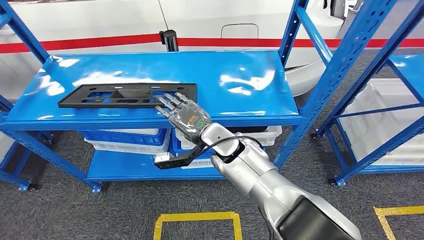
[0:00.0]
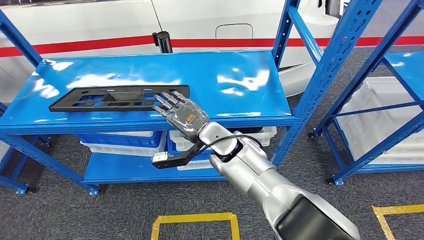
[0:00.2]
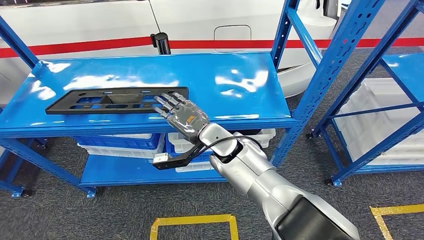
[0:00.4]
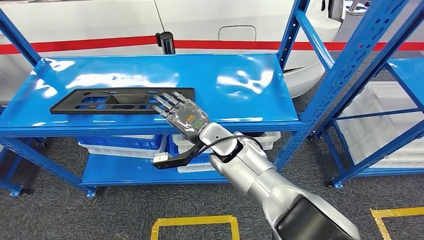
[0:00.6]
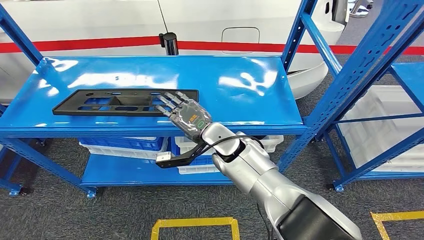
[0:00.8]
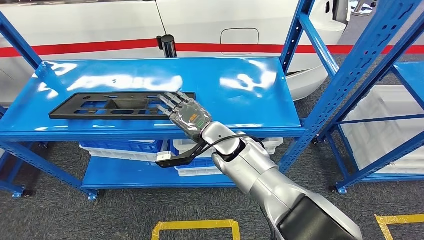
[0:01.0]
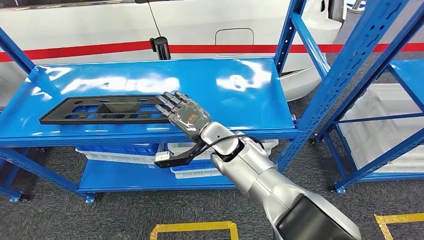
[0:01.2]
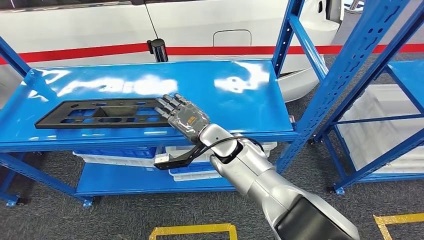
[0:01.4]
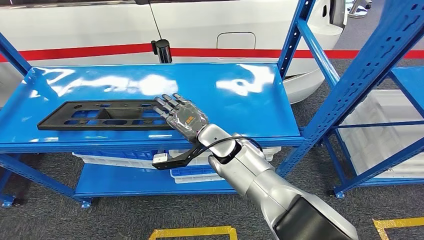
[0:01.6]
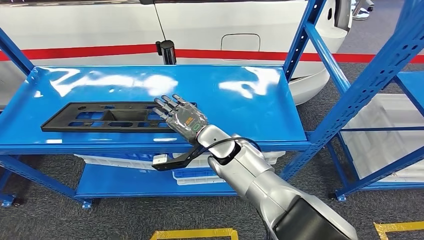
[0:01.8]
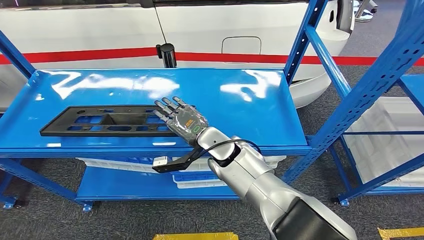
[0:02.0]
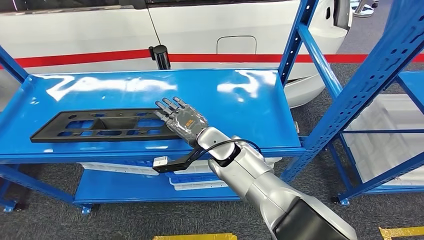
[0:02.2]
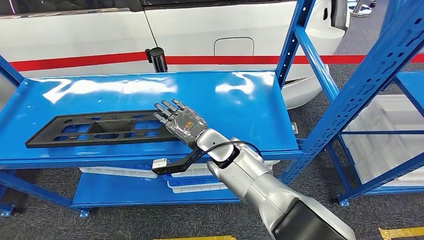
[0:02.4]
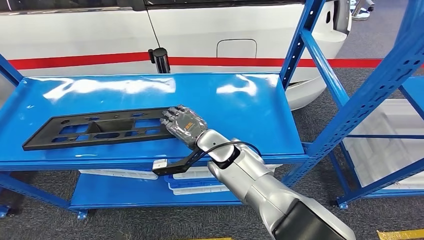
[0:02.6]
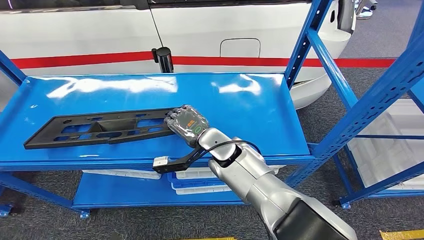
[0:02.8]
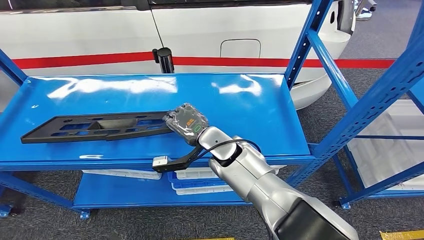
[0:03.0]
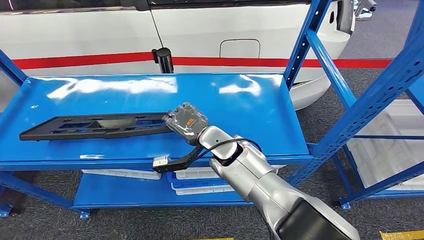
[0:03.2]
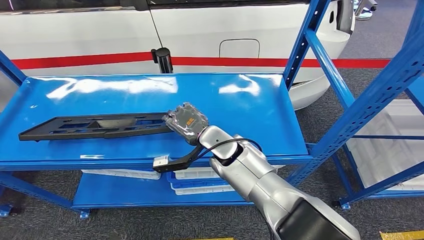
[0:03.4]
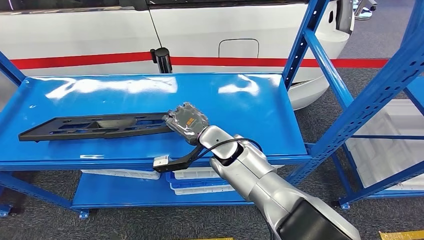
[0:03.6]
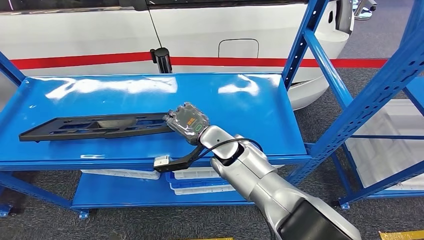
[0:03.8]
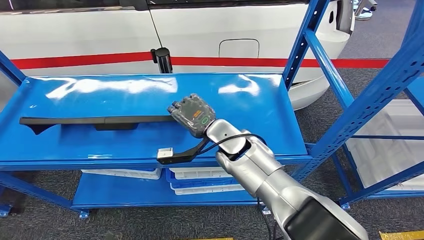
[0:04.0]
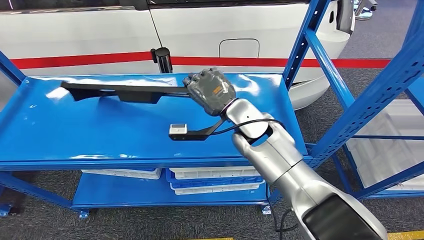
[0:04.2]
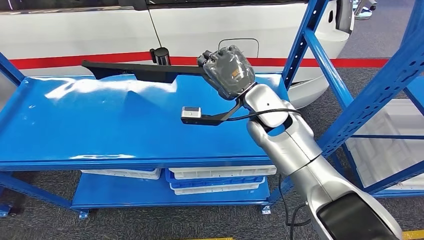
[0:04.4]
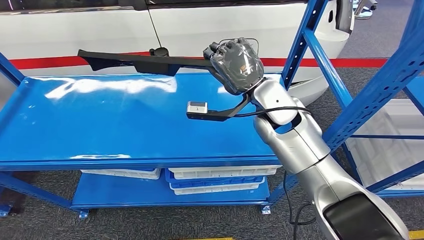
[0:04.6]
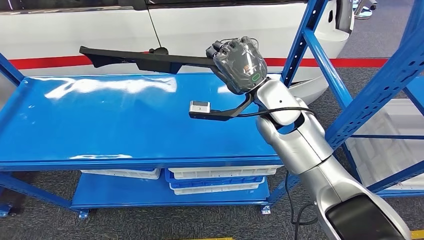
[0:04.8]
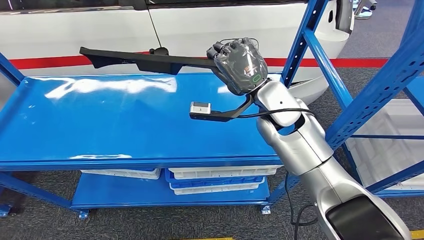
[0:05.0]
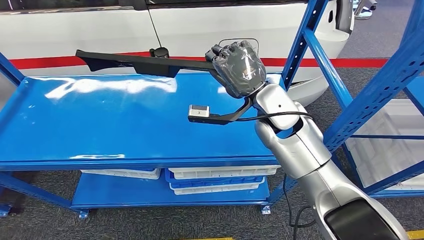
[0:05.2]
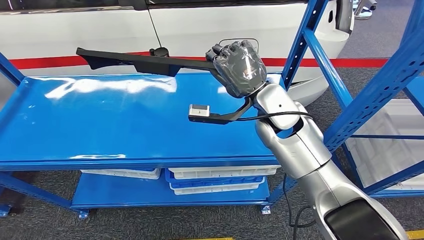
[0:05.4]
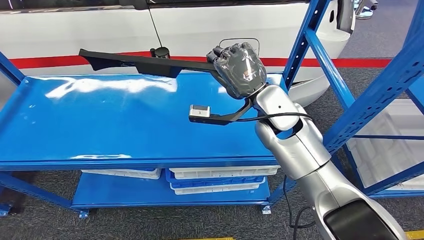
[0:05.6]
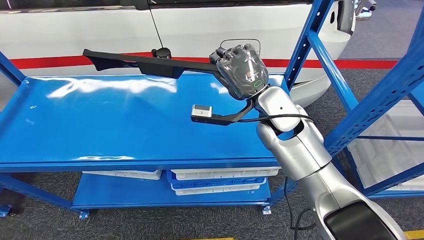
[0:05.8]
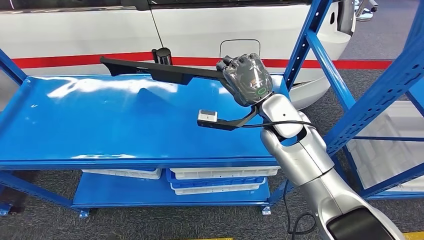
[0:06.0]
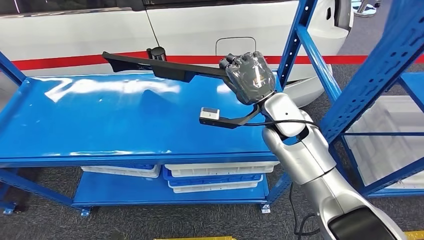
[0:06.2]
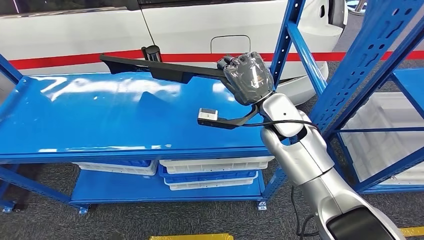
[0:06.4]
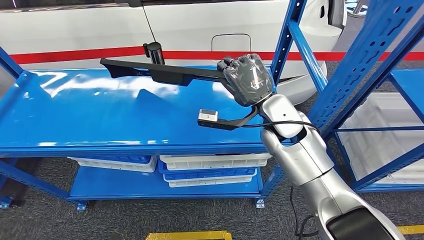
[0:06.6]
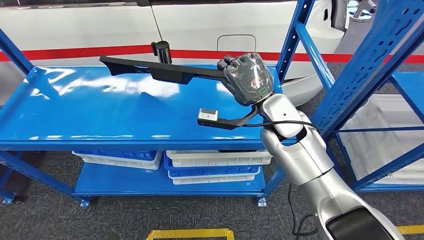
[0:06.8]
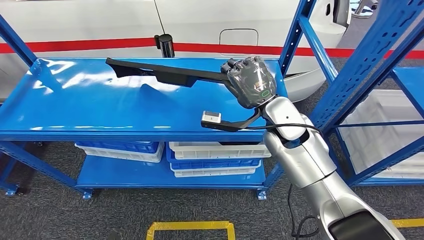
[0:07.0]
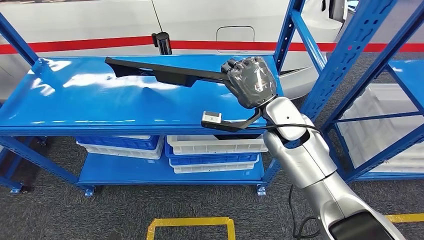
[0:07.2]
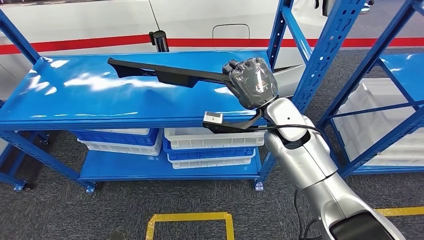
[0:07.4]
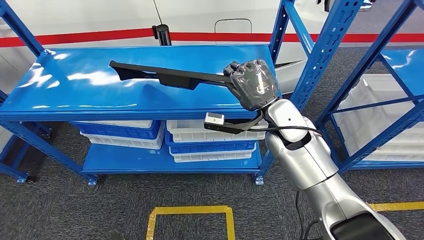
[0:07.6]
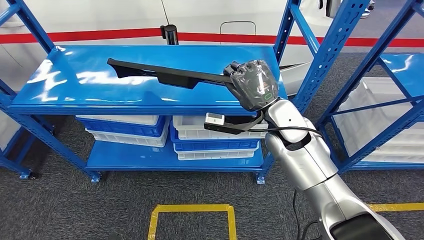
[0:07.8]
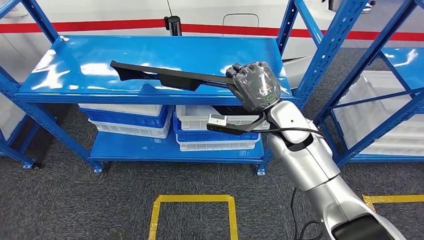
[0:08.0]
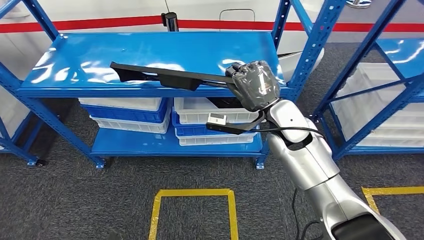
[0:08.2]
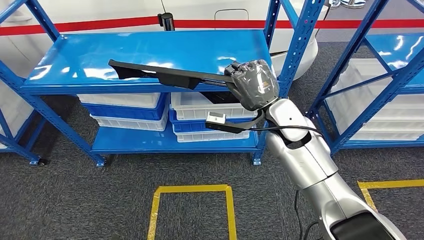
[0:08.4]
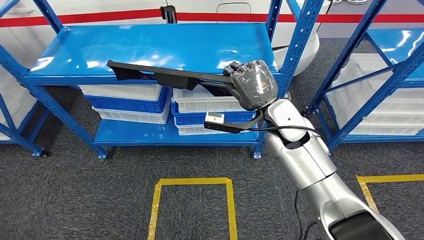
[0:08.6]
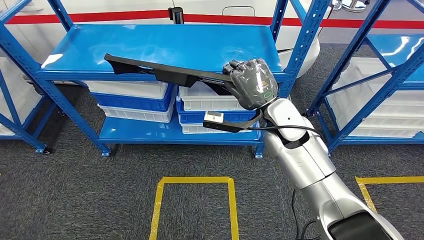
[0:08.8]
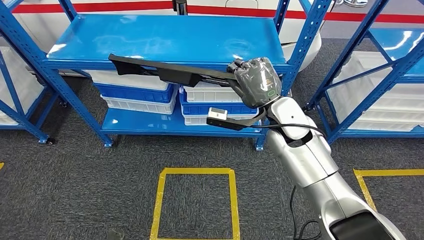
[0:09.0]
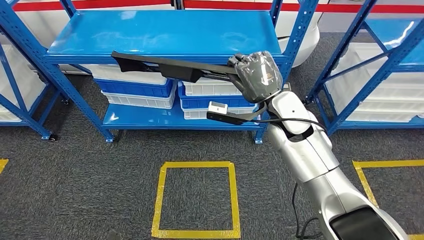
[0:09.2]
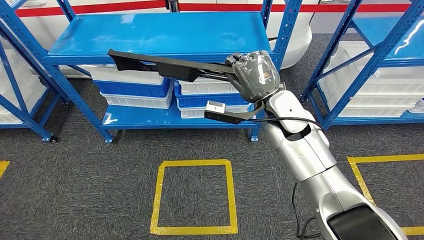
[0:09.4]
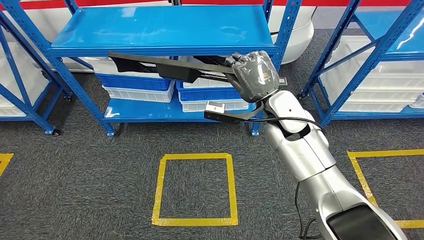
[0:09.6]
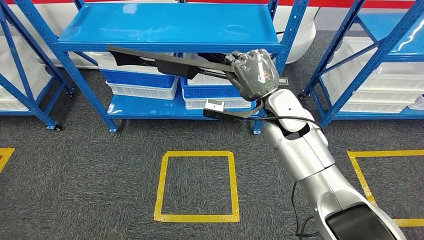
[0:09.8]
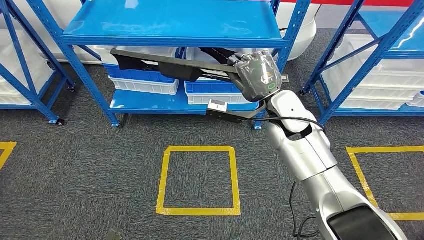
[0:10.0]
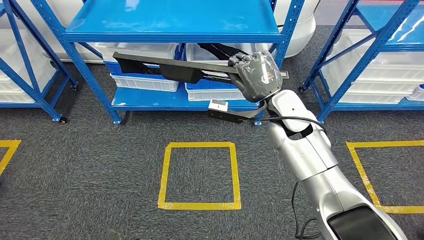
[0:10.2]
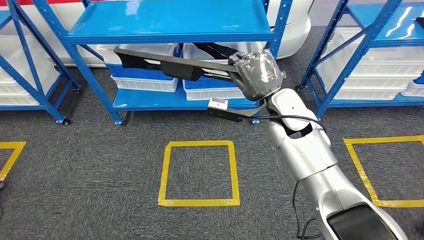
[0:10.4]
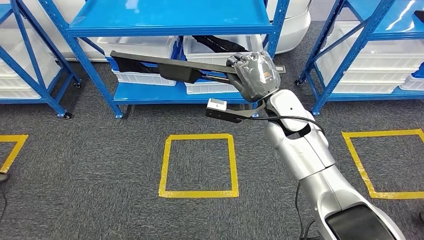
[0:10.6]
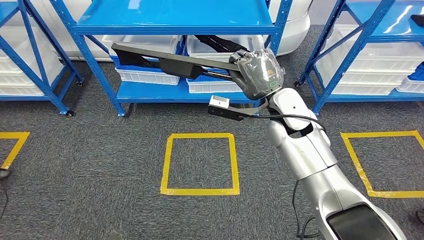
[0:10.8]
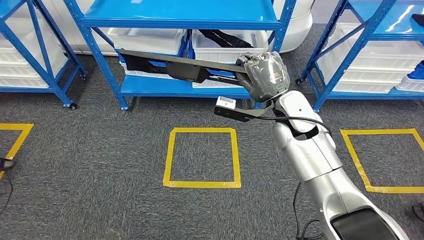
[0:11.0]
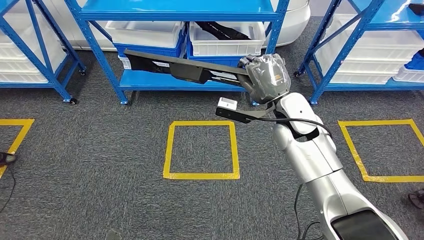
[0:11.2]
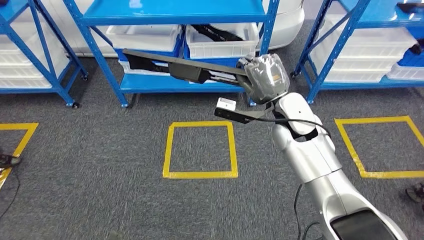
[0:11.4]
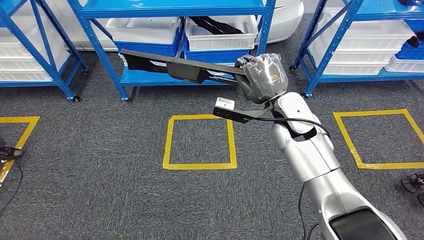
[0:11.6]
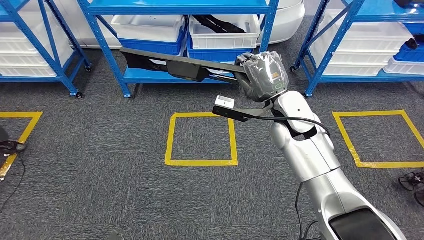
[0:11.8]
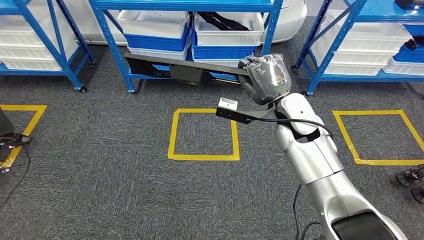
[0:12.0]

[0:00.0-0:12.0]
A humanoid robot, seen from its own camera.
Step, 0:00.0 to 0:10.6: Pick up the large material from the shelf.
0:04.4 to 0:06.0: There are only small adjustments of the hands.

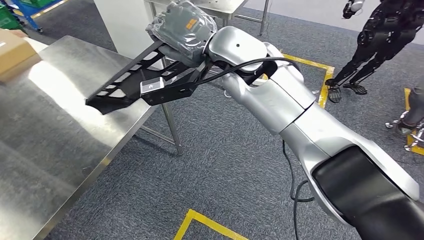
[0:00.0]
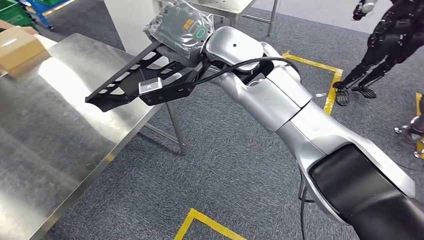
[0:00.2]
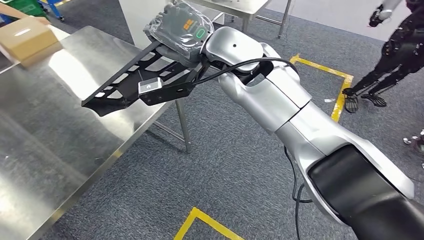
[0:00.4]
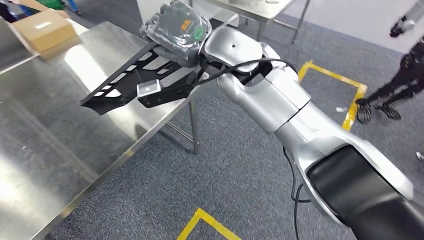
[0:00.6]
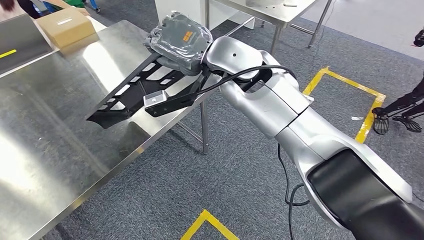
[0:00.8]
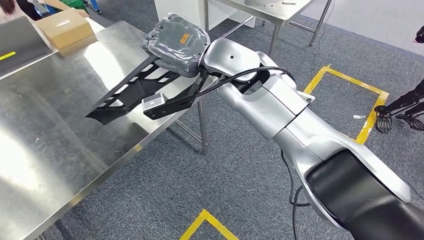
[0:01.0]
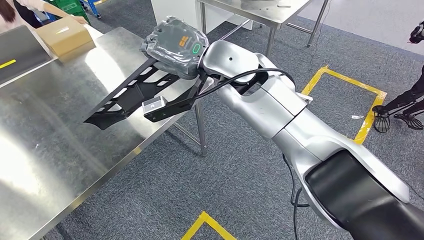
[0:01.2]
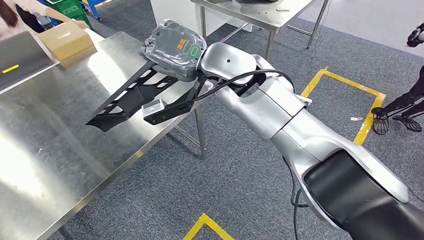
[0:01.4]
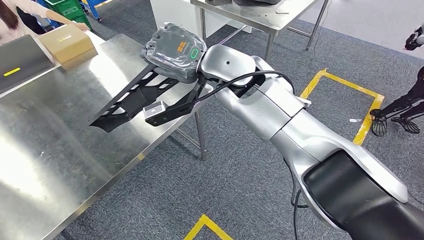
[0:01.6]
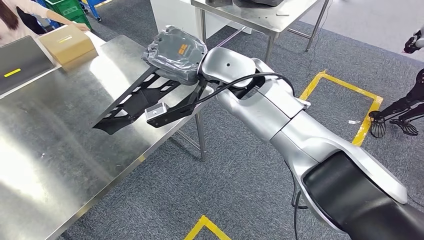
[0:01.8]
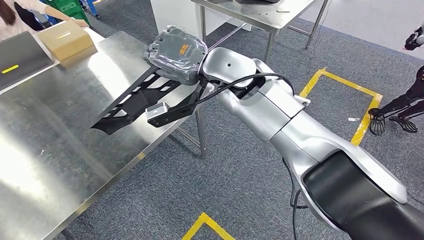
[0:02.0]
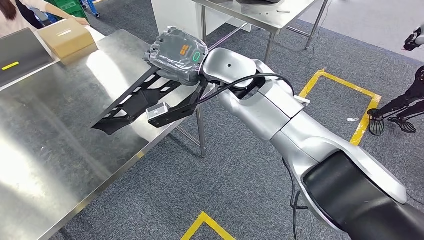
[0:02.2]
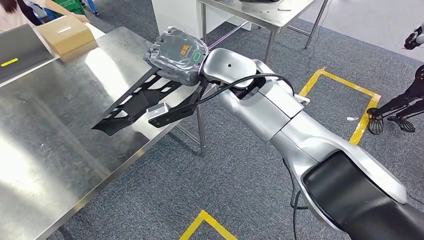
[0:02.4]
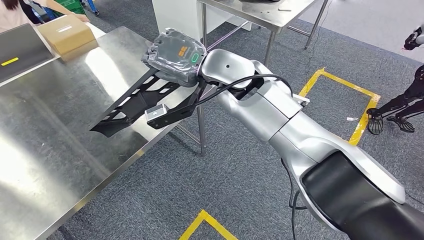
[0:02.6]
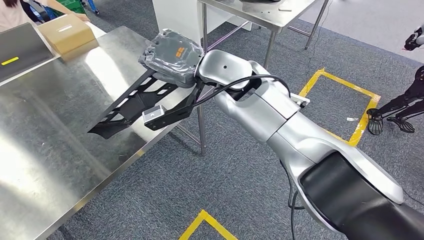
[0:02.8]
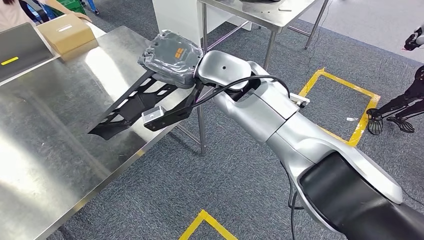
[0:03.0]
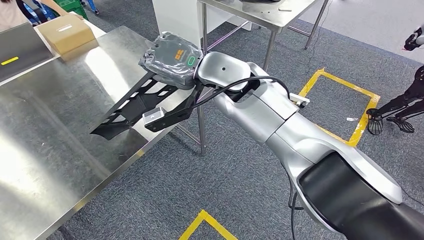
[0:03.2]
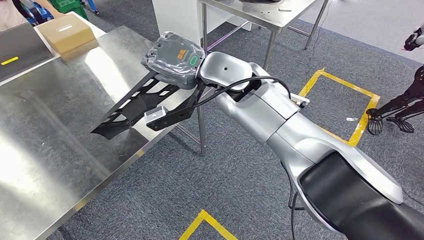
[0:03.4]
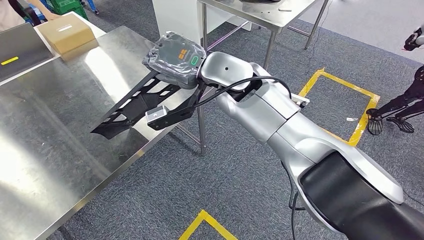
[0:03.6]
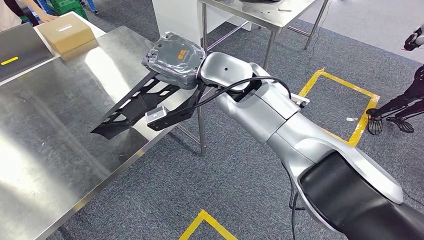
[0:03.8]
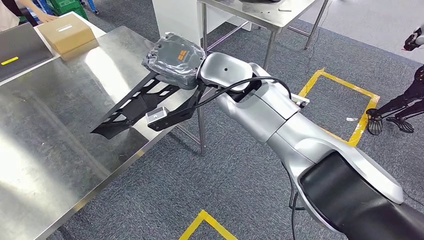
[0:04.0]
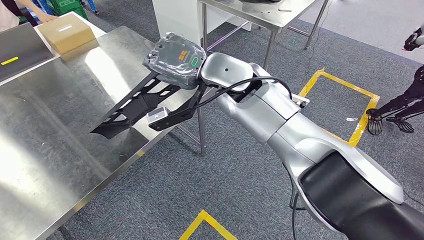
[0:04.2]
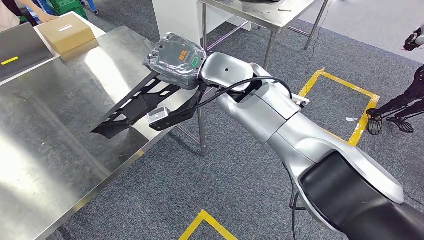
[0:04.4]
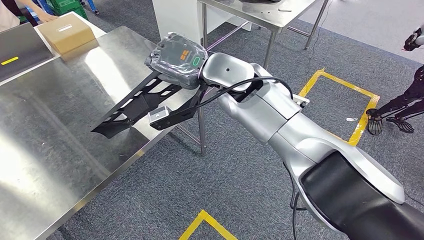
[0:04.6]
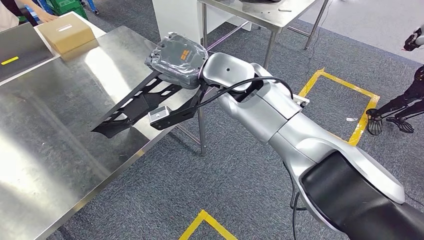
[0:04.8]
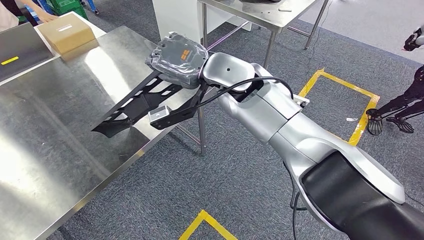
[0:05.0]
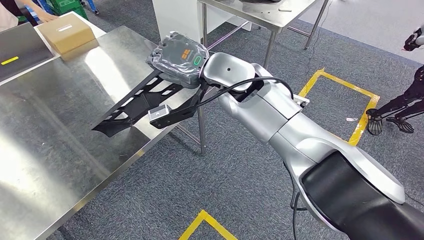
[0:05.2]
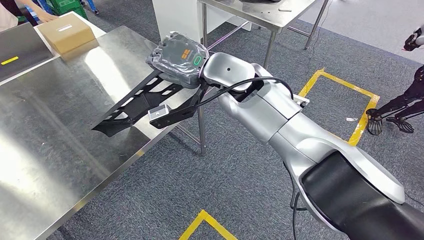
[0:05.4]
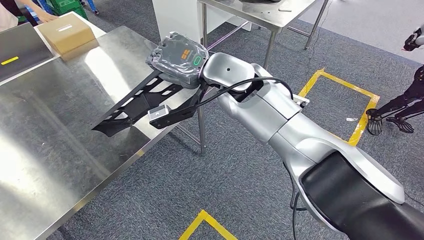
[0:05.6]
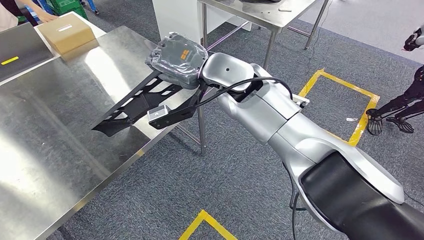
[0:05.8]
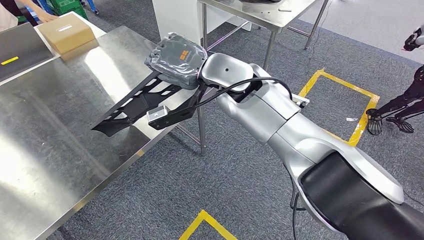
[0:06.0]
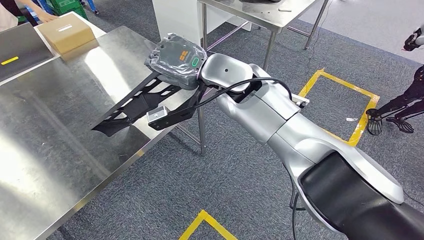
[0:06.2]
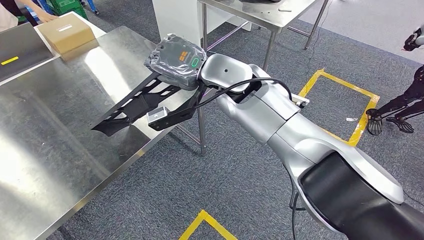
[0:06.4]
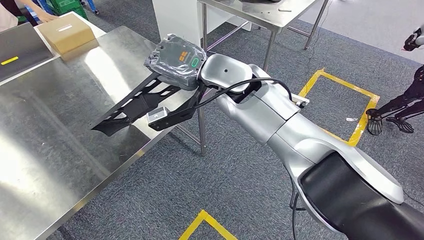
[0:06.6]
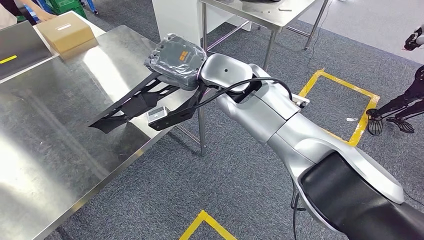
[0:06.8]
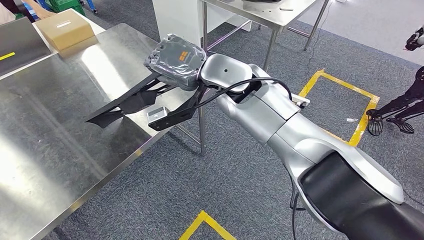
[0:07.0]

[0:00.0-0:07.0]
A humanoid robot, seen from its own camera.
Step, 0:00.0 to 0:03.6: Move the large material to the workbench.
0:02.8 to 0:04.2: The hands stay close to where they were, moving slightly.
0:04.2 to 0:05.6: Neither hand changes place.
0:05.6 to 0:07.0: The two hands keep their place.
